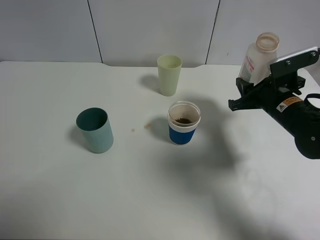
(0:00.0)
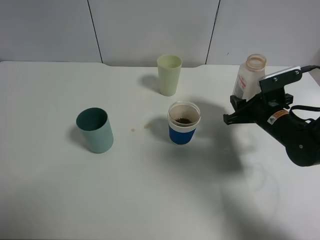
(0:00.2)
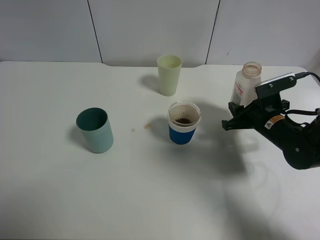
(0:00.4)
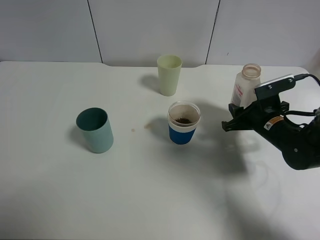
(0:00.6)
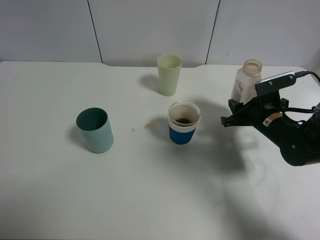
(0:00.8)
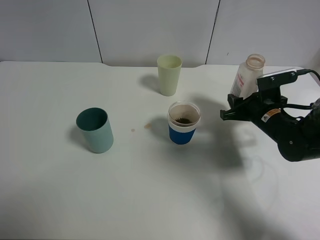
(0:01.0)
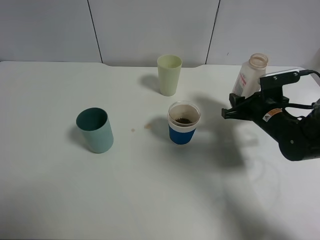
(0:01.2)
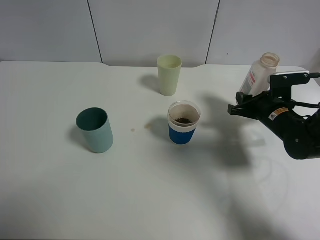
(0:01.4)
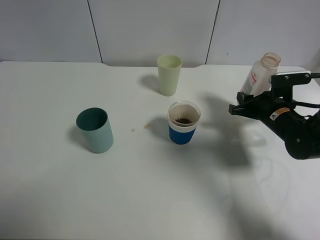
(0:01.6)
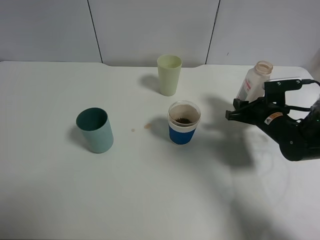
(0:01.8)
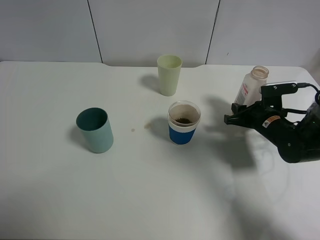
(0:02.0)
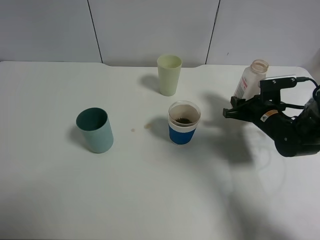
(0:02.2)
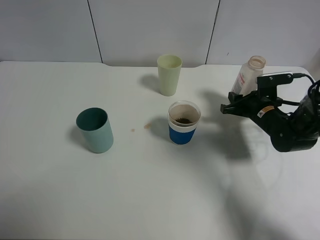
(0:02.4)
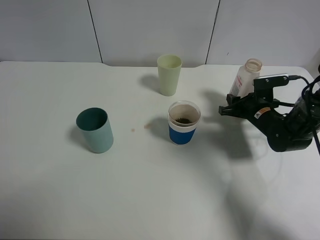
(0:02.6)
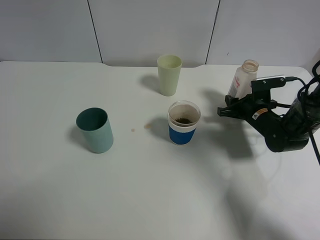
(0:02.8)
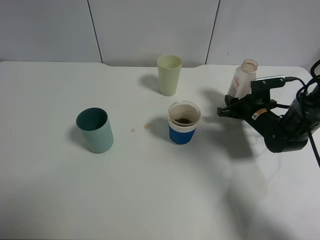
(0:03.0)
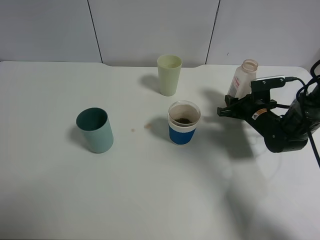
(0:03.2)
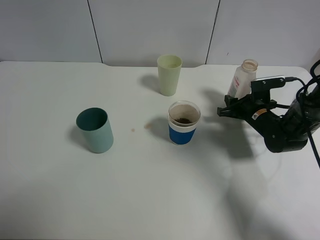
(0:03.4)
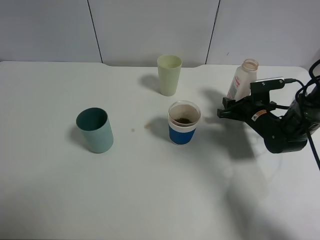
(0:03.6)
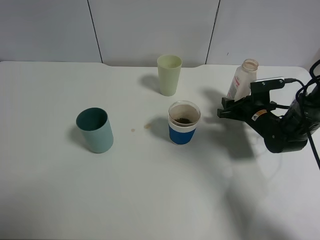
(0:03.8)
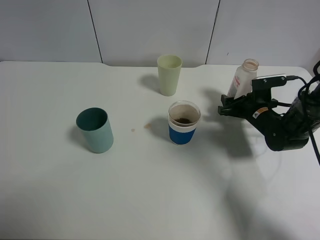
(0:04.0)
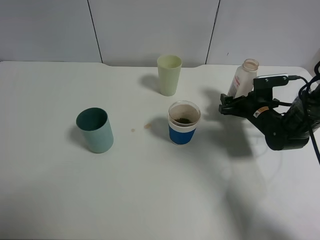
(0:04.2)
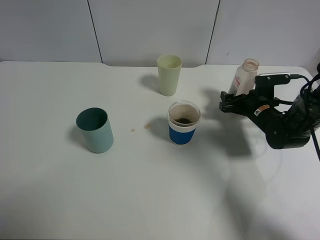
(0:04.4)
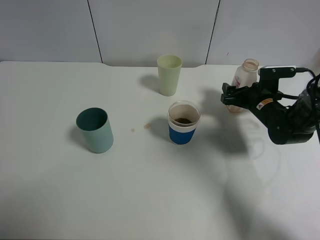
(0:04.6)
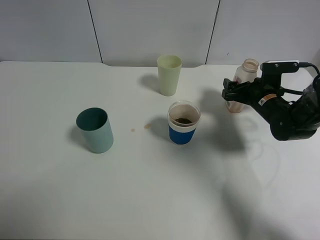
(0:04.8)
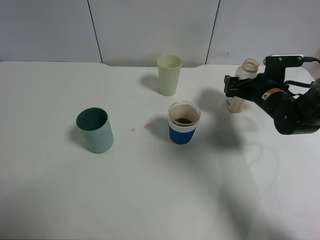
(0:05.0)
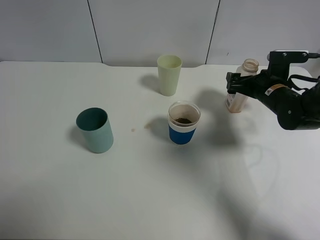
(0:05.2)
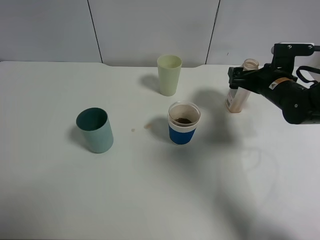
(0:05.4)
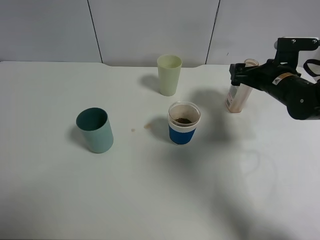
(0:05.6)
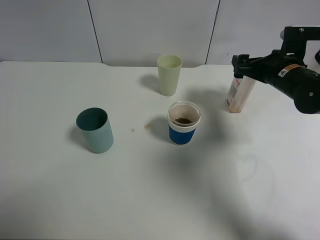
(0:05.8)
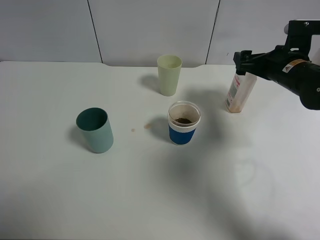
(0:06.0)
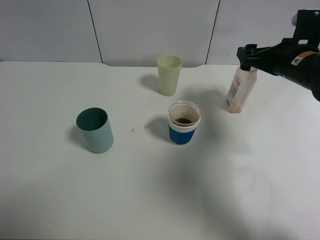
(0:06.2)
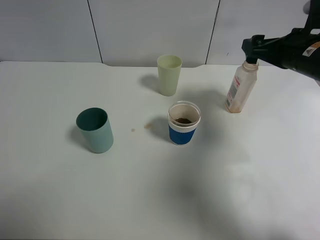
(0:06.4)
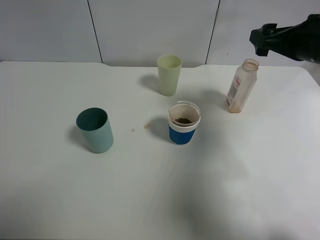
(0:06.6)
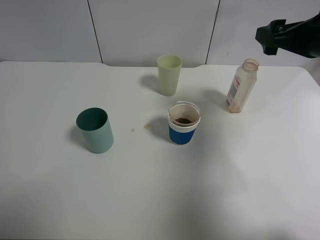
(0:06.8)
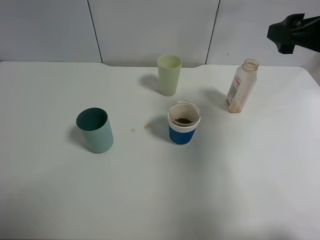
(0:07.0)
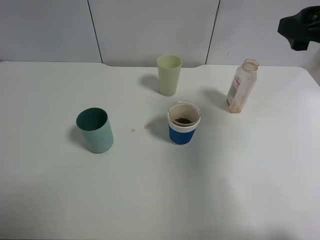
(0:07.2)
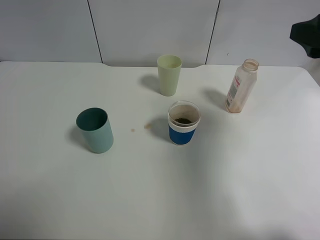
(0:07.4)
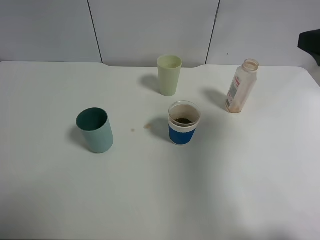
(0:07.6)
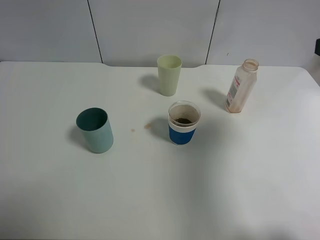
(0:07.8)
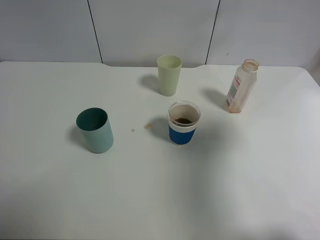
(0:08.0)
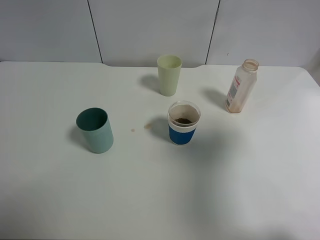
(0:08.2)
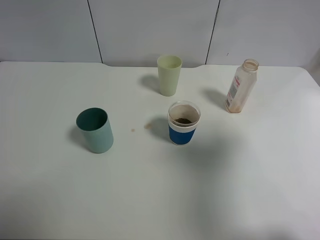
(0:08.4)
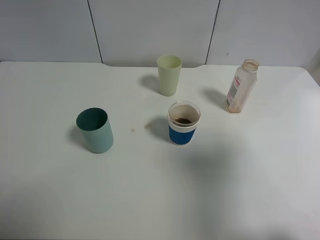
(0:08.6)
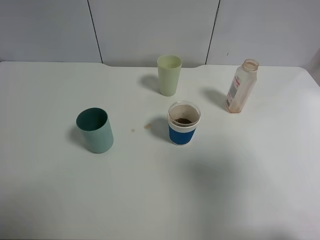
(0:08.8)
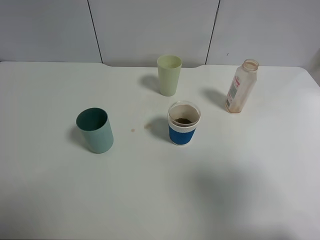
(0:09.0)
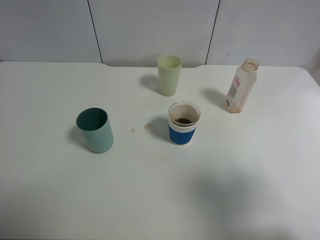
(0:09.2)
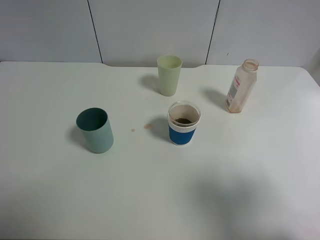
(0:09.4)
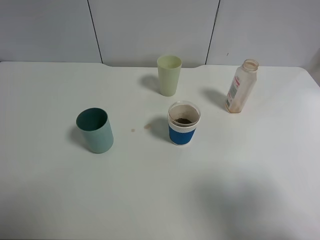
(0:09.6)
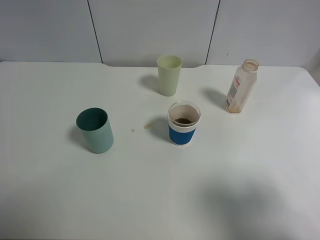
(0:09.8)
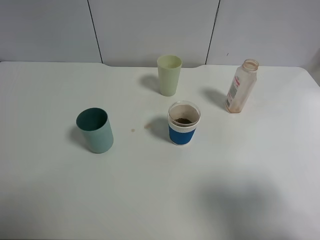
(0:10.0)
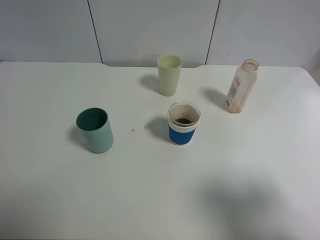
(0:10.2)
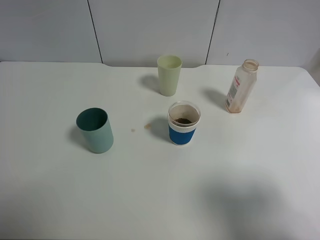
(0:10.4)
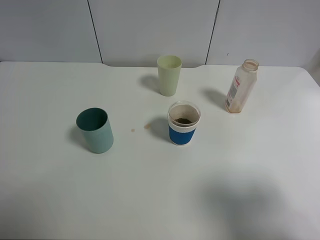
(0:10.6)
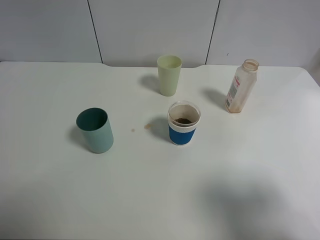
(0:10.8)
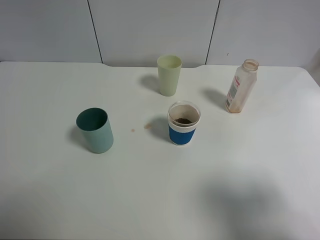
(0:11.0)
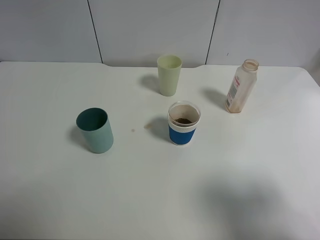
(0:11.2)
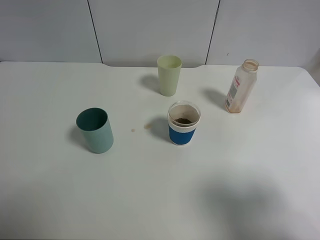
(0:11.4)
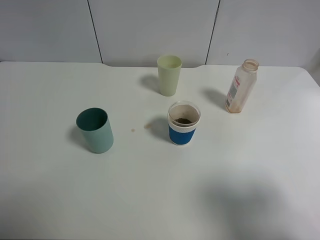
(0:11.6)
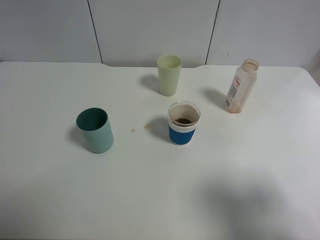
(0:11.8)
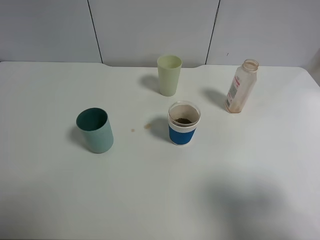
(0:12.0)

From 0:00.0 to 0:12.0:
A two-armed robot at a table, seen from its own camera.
Task of the whole recording: use a clamp to hold the bottle of the drink, pour the beverage into a random cup, then clamp the cup containing the drink and pour the drink into another random cup.
Step, from 0:00.0 to 0:05.4: Place the drink bottle on the table with right gripper.
From 0:00.0 to 0:01.6: The right gripper shifts by about 5 cm.
From 0:01.6 to 0:03.0: The right gripper shifts by some 5 cm.
From 0:03.0 to 0:04.4: The right gripper opens up.
From 0:04.4 to 0:06.0: The right gripper is displaced upward by some 10 cm.
From 0:06.0 to 0:07.6: The right gripper is displaced backward and upward by about 20 cm.
From 0:07.6 to 0:09.0: The right gripper goes approximately 15 cm backward.
From 0:09.0 to 0:10.4: The grippers make only small movements.
From 0:10.4 to 0:12.0: The two grippers keep their place.

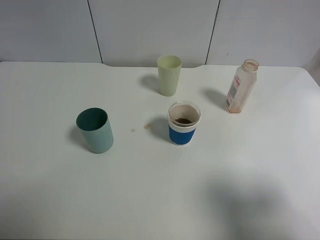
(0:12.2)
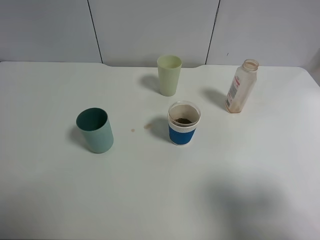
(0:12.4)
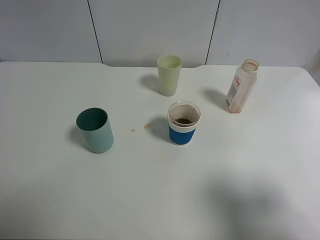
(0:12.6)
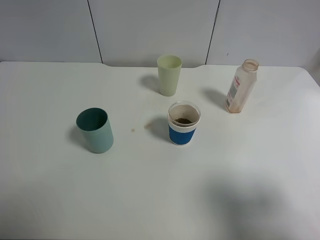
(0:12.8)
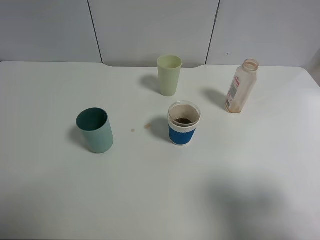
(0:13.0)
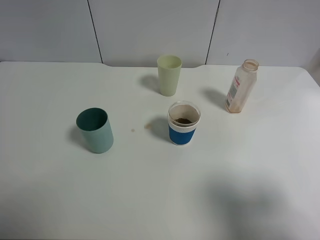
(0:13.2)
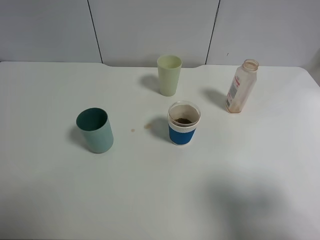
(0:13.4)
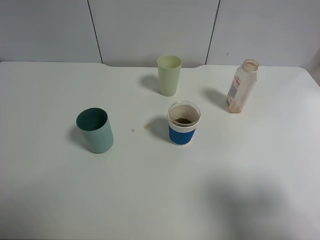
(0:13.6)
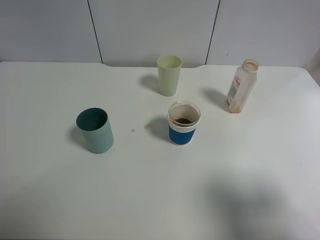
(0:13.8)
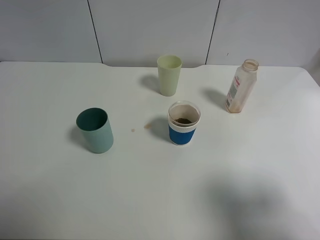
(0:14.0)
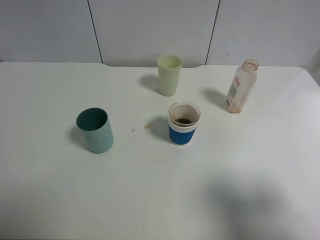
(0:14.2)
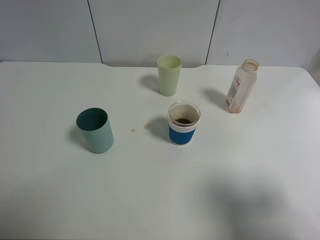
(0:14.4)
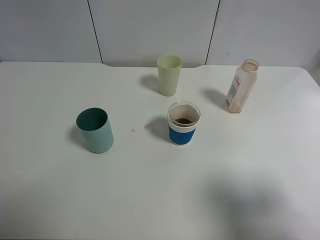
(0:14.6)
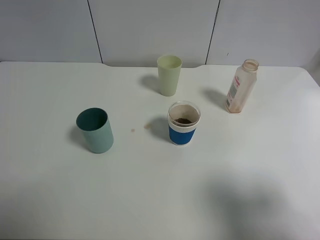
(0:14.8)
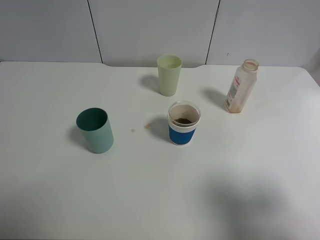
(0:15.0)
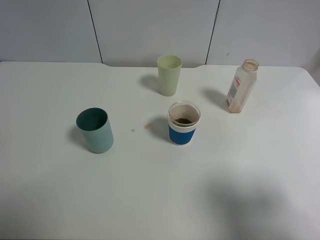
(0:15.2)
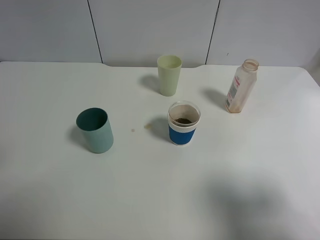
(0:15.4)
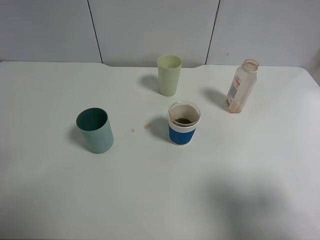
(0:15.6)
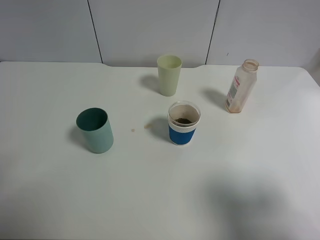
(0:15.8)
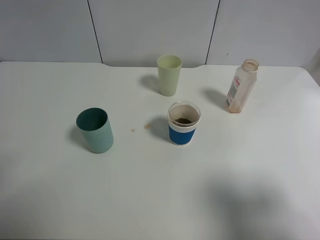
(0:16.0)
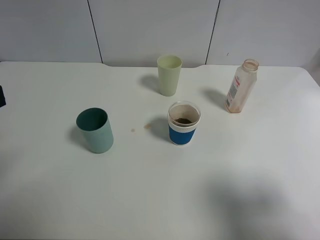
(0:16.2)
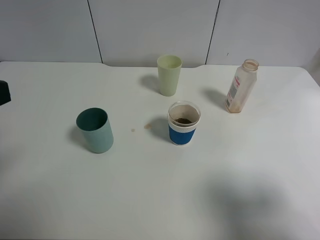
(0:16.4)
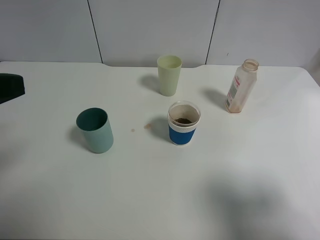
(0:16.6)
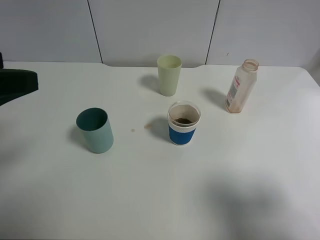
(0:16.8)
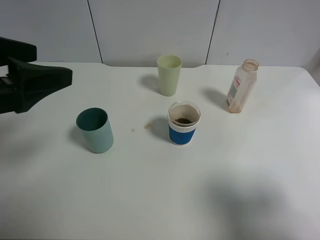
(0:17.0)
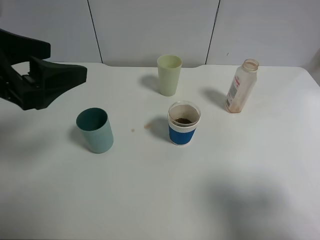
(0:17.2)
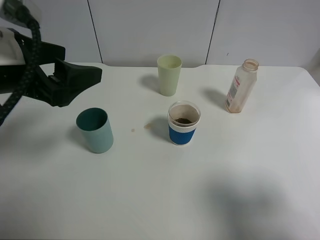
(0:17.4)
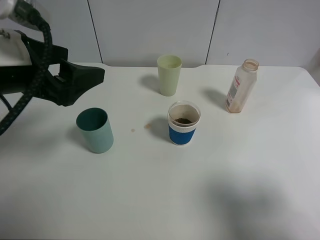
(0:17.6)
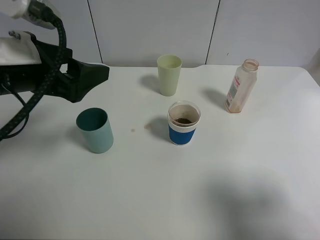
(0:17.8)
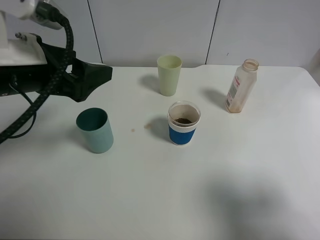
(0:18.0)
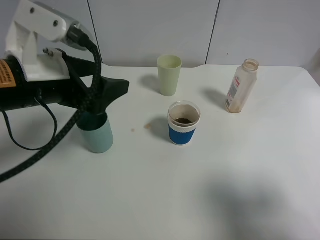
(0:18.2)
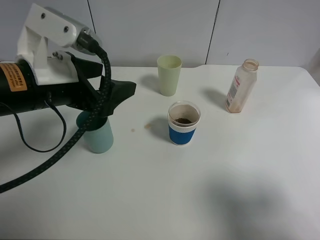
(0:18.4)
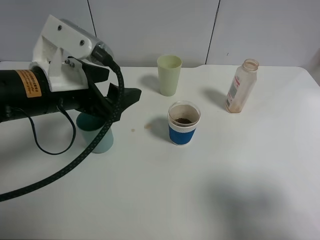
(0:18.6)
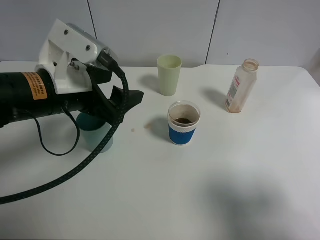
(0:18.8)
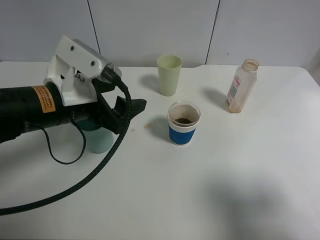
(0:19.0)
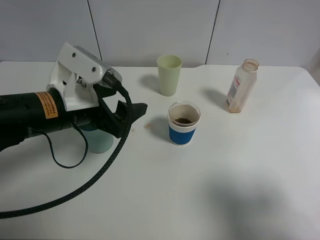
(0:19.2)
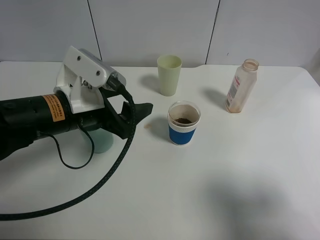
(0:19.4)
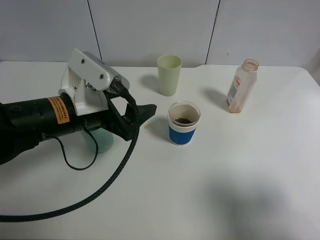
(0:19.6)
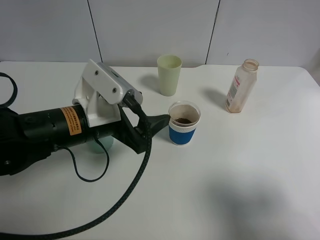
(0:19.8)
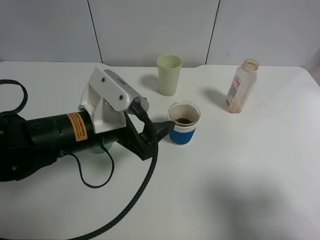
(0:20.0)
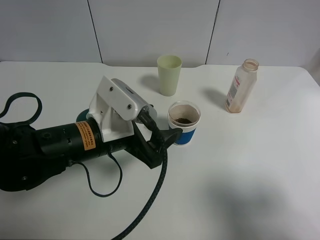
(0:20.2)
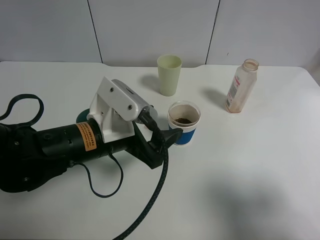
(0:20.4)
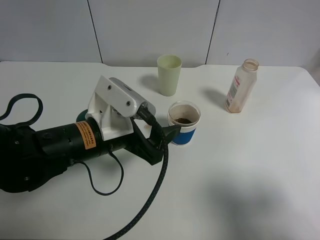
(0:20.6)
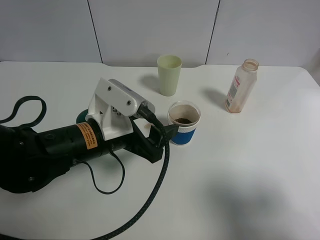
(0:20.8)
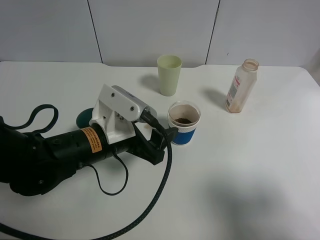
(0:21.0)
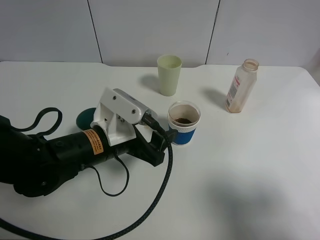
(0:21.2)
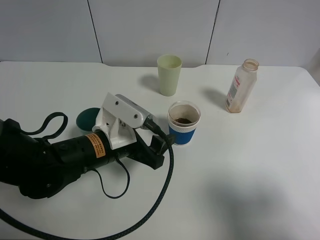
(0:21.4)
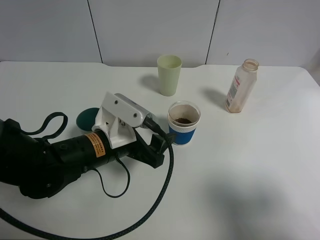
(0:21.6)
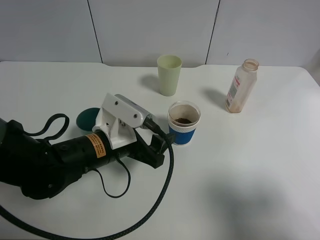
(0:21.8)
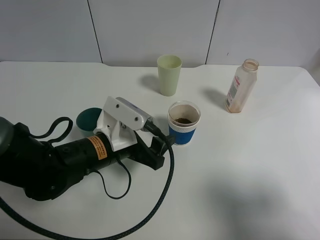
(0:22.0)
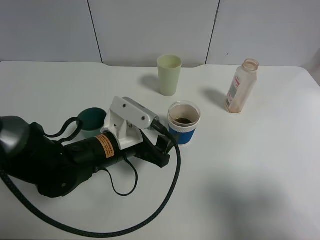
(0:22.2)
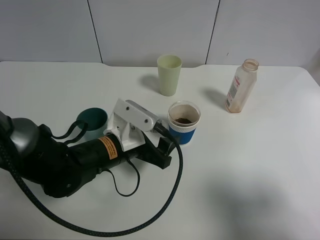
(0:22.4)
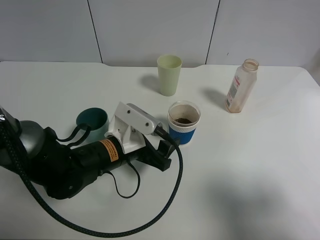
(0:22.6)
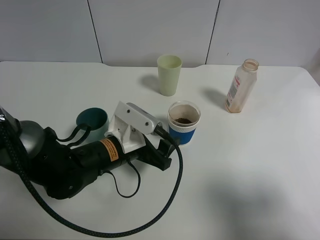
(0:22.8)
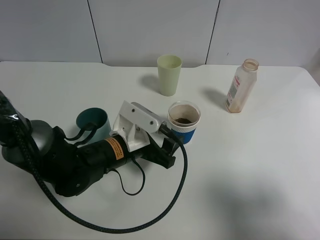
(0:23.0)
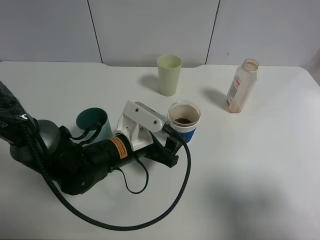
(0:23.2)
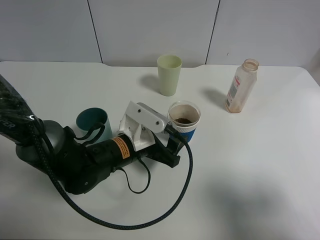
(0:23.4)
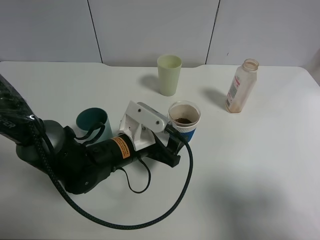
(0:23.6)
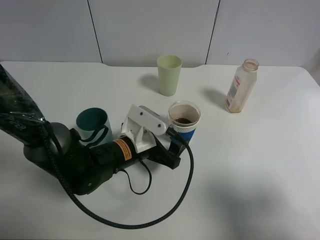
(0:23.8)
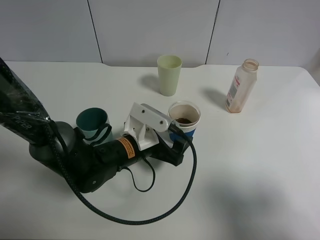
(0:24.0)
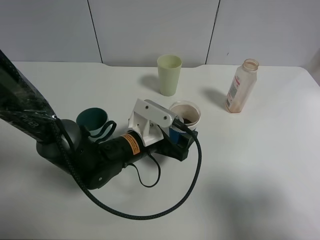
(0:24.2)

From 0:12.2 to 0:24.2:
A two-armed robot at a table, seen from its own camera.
Task of the whole recording: use a clamp to hold the bottle of the drink, pour the beverage into a random cup, then clamp the cup containing the drink and pour the drink into another random cup.
From 0:12.2 to 0:13.8: Both grippers stay about where they are.
From 0:15.2 to 0:16.6: The left gripper moves some 5 cm.
From 0:16.6 to 0:18.2: The left gripper heads to the right, forward and downward, covering about 15 cm.
From 0:18.2 to 0:19.8: The left gripper heads downward and to the right, covering approximately 10 cm.
From 0:19.8 to 0:21.2: The grippers stay close to where they were, moving slightly.
From 0:21.2 to 0:22.6: The grippers stay close to where they were, moving slightly.
From 0:22.6 to 0:24.2: The left gripper opens up.
